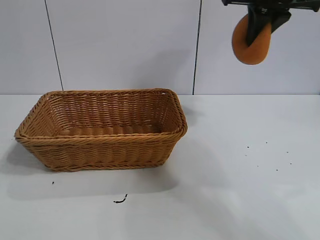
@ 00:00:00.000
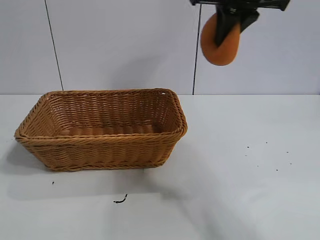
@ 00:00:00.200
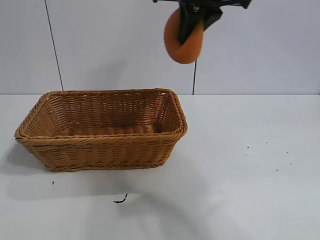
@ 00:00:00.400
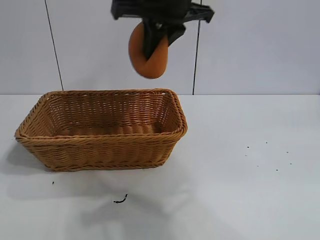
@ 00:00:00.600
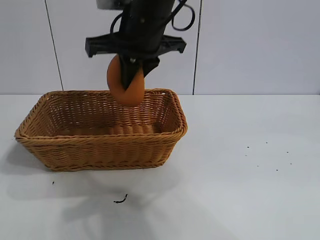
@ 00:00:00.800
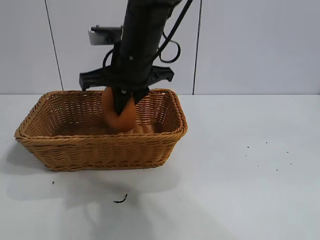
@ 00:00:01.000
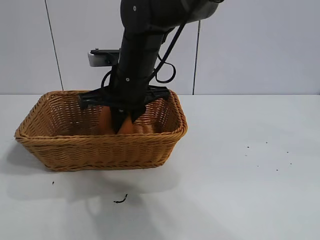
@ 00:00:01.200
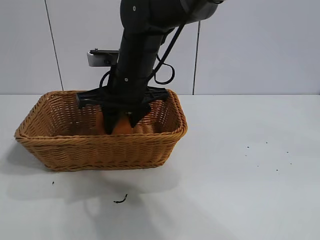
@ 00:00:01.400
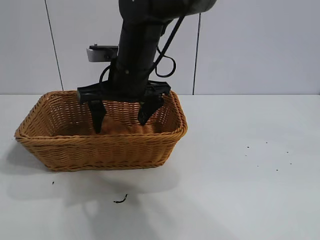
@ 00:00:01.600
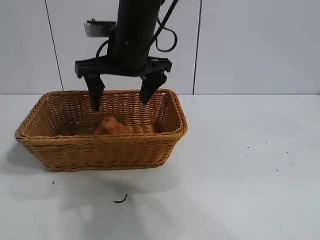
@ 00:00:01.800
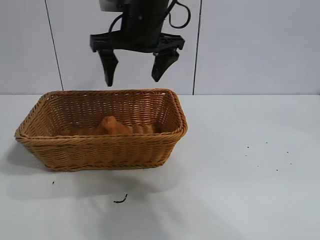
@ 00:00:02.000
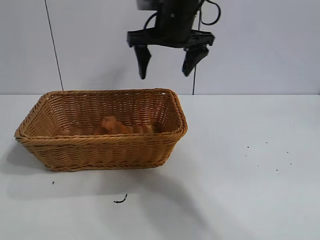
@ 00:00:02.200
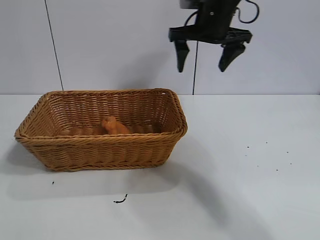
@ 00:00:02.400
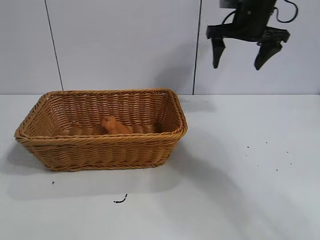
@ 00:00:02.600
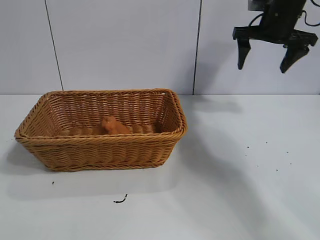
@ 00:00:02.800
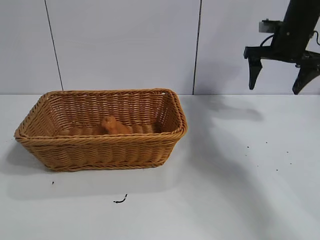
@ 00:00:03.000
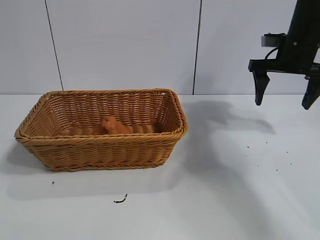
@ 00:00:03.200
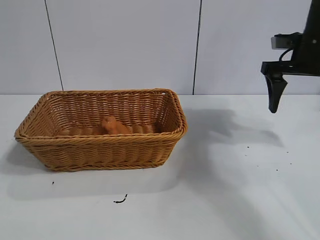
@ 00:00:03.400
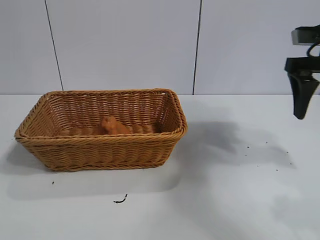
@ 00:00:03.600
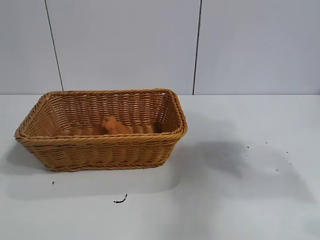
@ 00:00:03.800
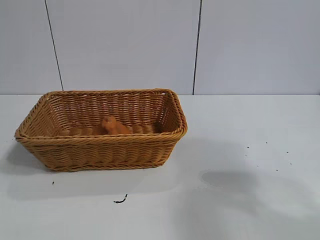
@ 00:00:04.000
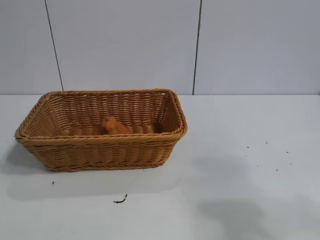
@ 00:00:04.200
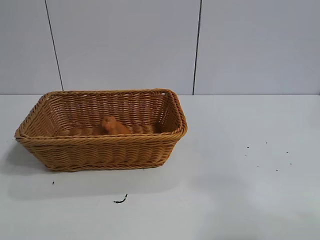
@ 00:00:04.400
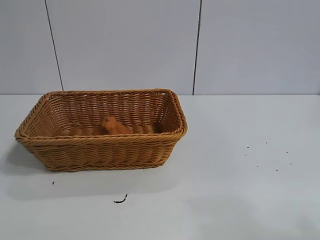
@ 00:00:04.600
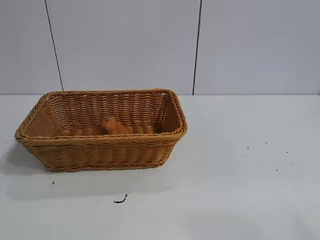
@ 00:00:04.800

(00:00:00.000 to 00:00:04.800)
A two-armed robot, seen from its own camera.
Task of the whole recording: pick up the orange and put it into the basket.
Step, 00:00:00.000 - 00:00:01.600: Place the orange in the basket with right gripper.
